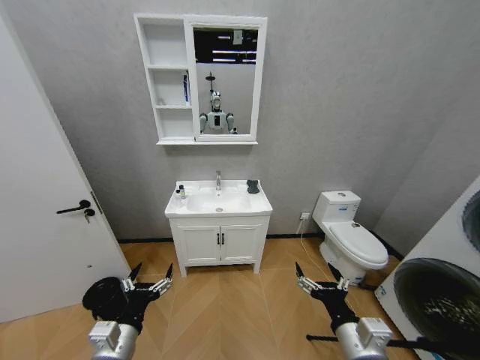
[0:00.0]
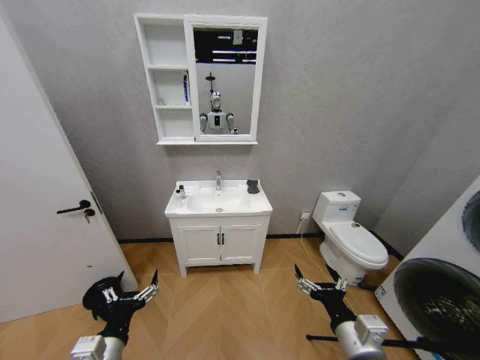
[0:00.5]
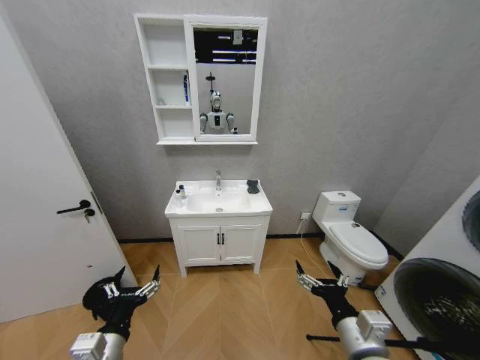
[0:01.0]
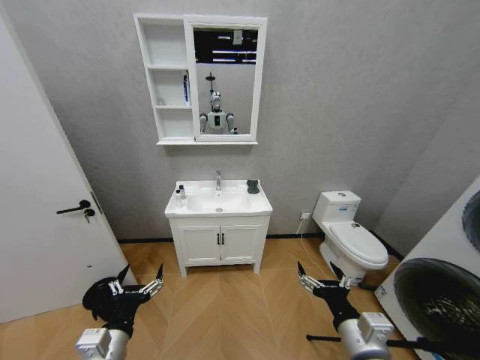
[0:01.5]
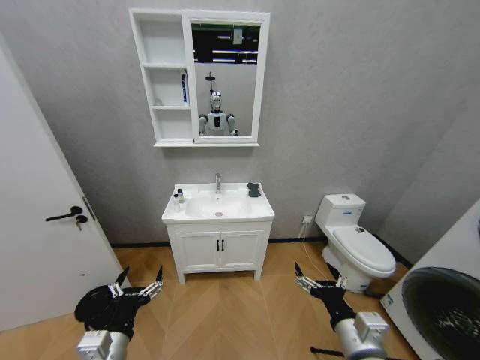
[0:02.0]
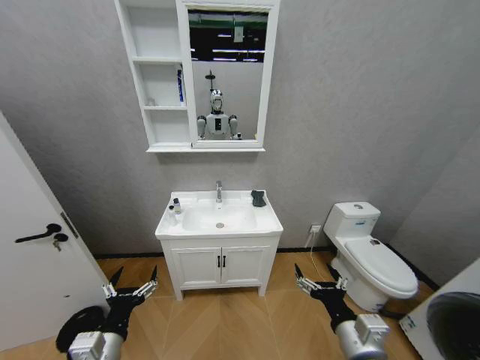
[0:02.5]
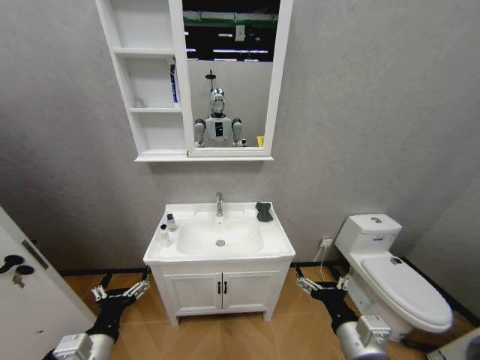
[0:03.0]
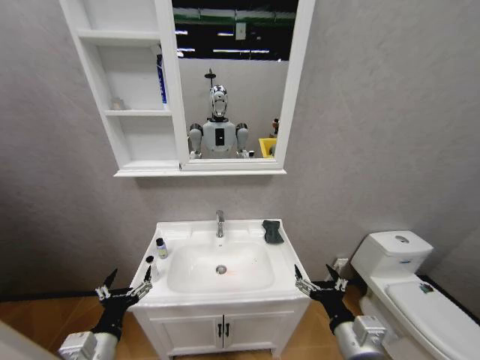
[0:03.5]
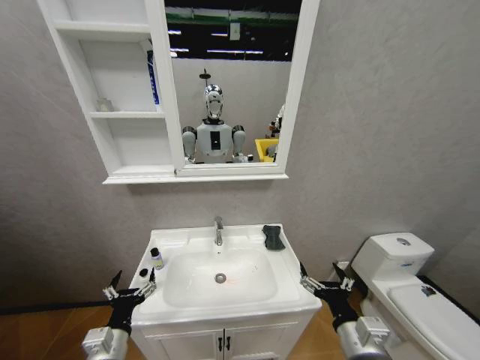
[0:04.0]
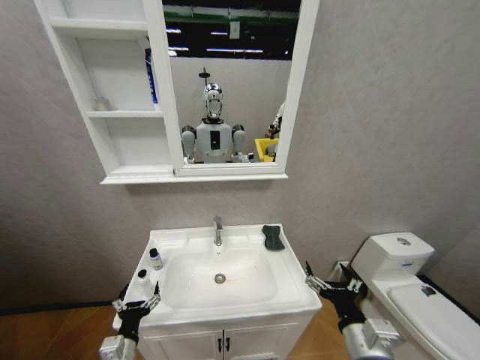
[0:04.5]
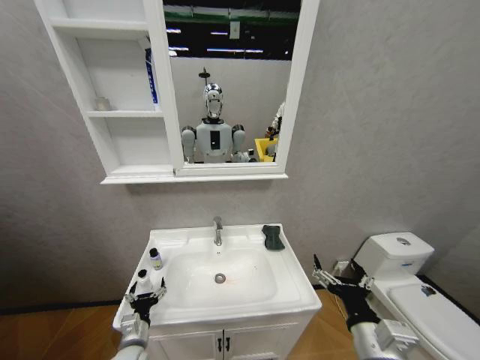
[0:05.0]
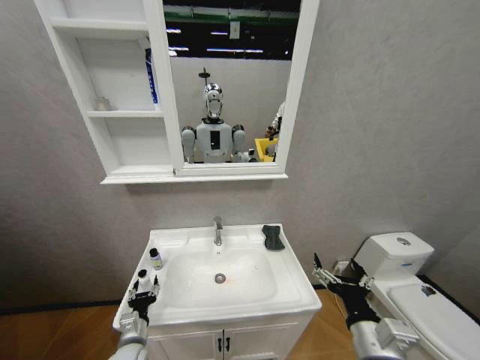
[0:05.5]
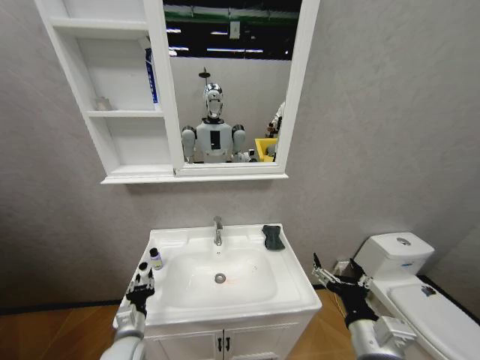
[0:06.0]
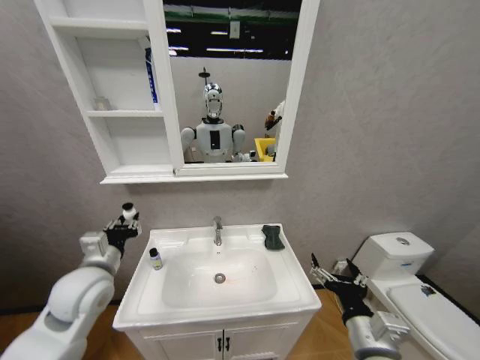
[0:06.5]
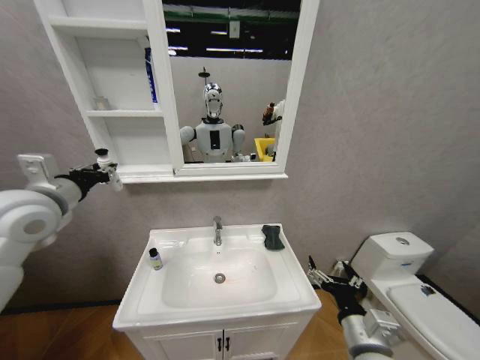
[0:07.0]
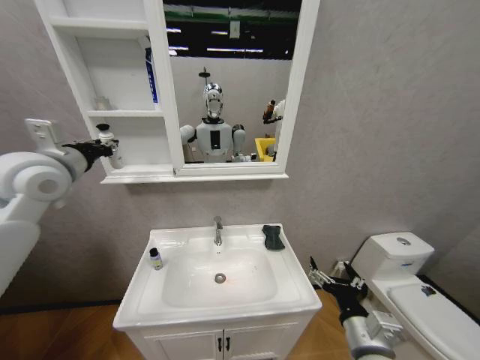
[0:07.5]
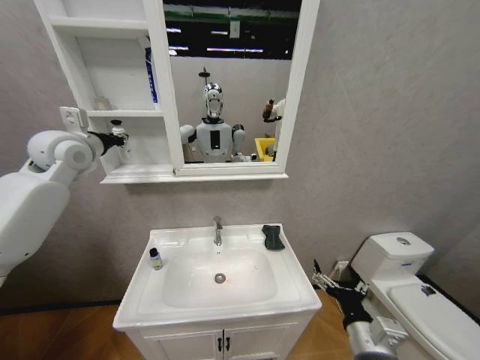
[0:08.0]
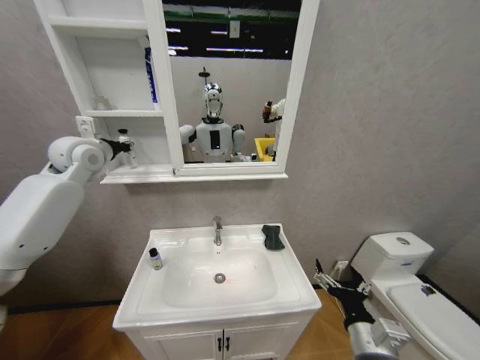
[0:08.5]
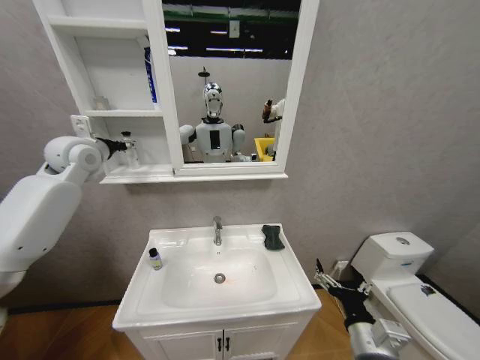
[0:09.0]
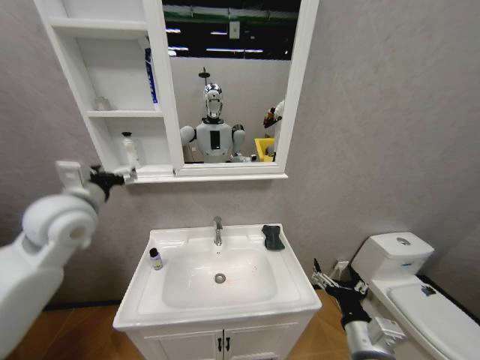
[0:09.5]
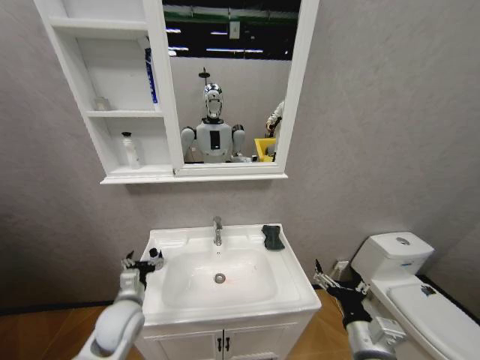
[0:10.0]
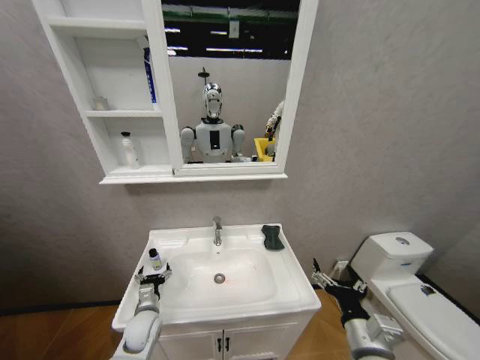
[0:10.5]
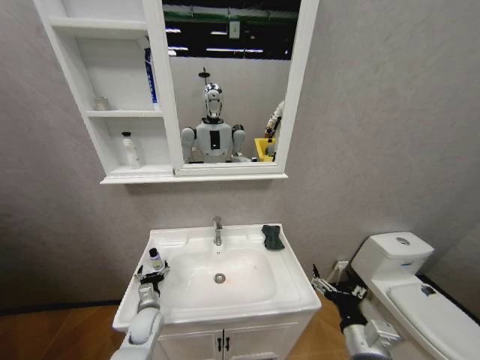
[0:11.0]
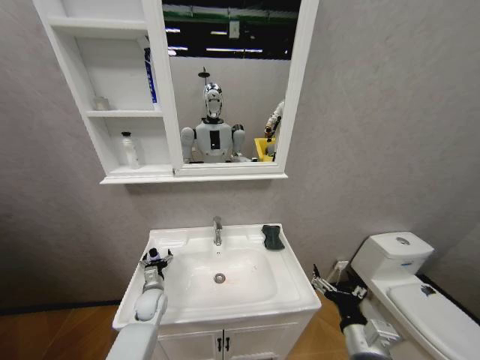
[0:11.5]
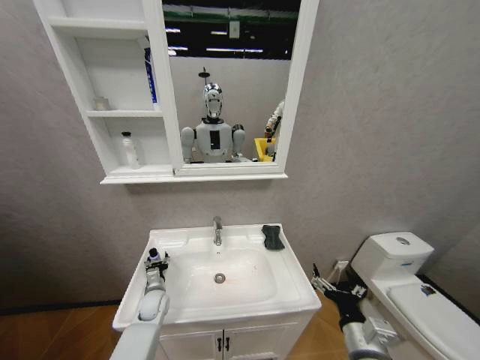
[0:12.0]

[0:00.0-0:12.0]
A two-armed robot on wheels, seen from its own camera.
Task of the whole recording: Move facial cleanser and shampoo from washbasin to cabinet, then wipe washbasin with towel.
0:04.0 to 0:06.0: The left gripper goes roughly 10 cm forward and downward, and closes.
0:06.0 to 0:08.0: The left gripper shifts about 50 cm upward and forward.
0:08.0 to 0:10.0: The left gripper goes some 40 cm downward, and opens.
0:10.0 to 0:12.0: The left gripper goes approximately 15 cm forward and downward, and closes up.

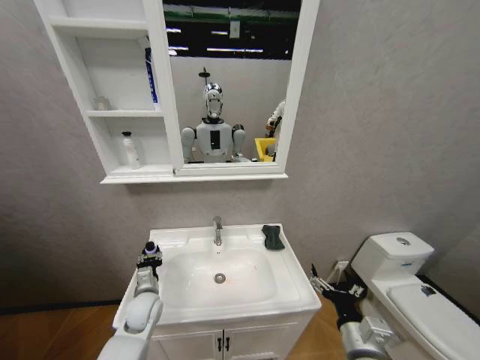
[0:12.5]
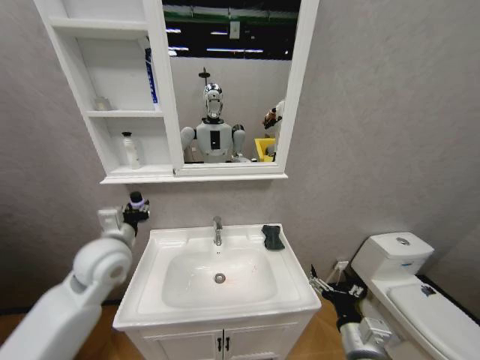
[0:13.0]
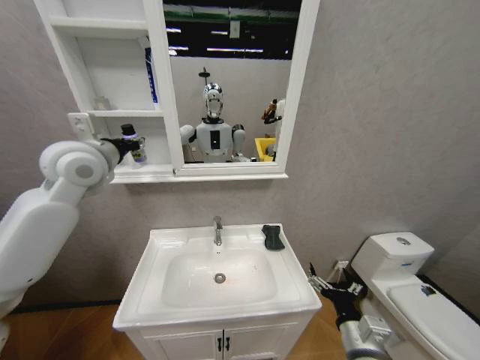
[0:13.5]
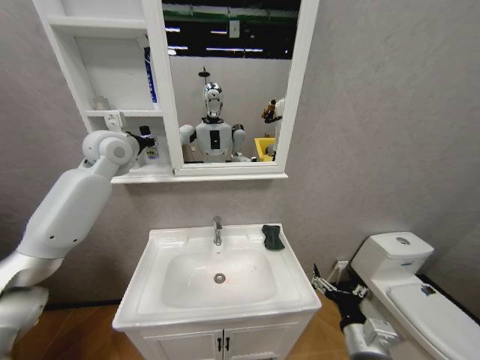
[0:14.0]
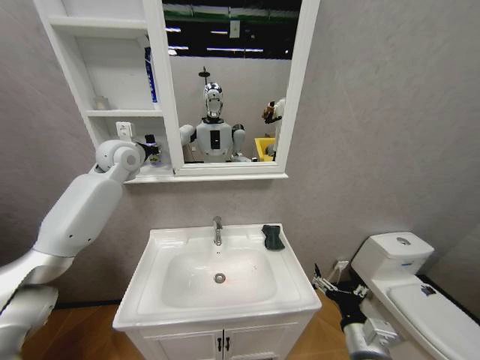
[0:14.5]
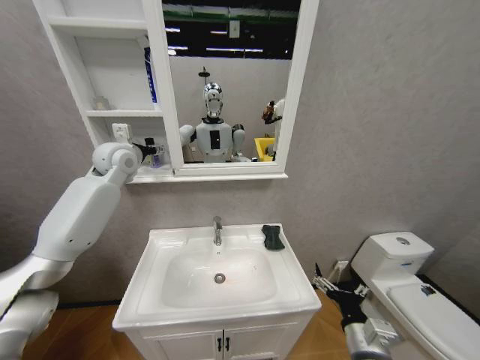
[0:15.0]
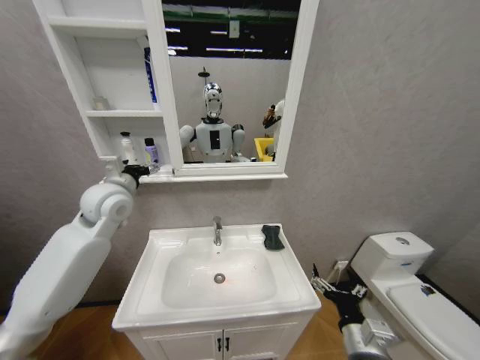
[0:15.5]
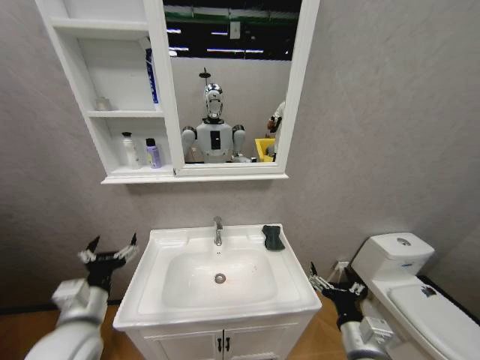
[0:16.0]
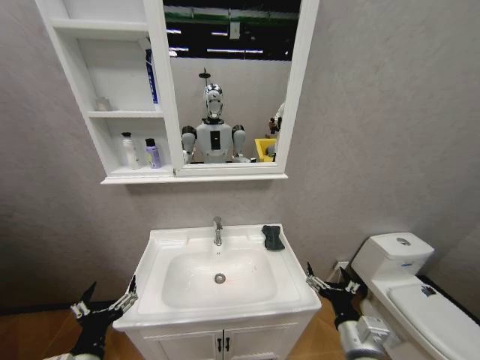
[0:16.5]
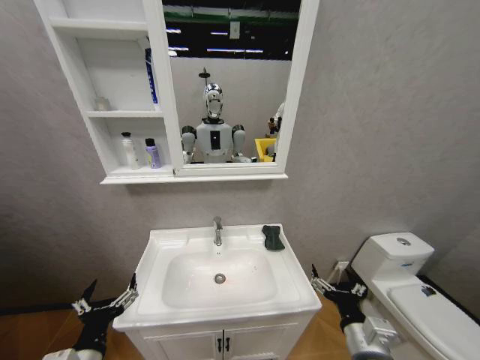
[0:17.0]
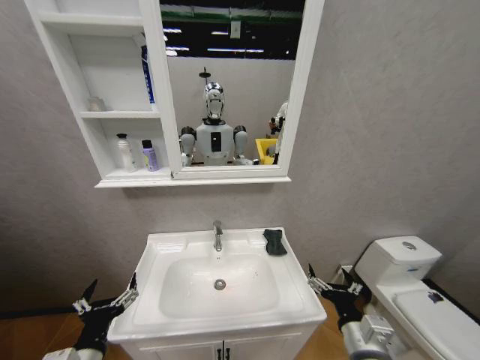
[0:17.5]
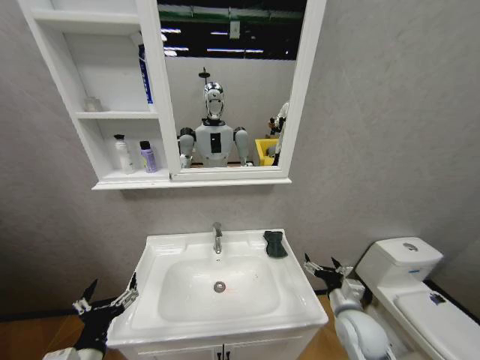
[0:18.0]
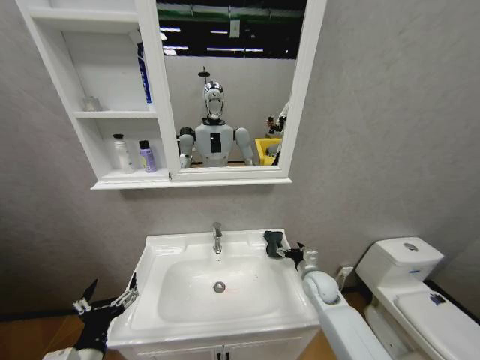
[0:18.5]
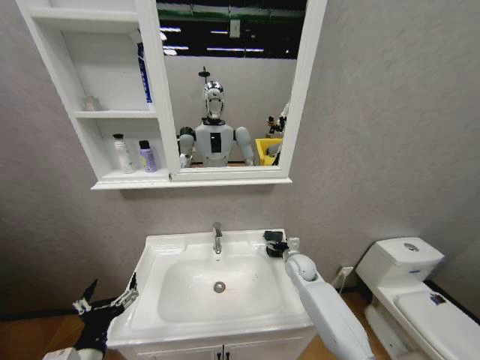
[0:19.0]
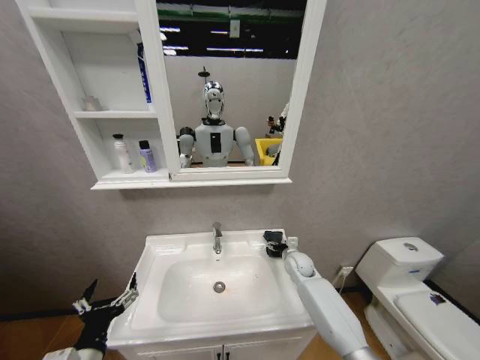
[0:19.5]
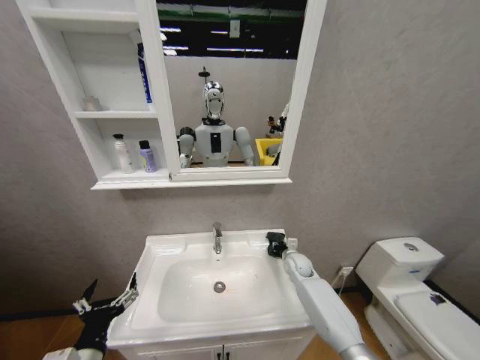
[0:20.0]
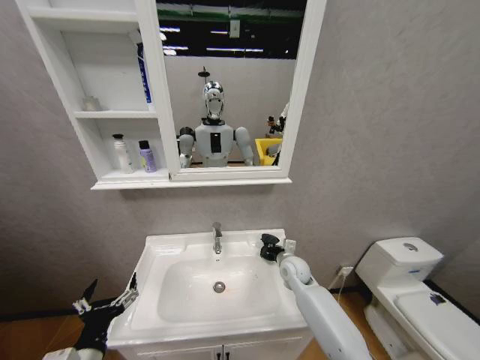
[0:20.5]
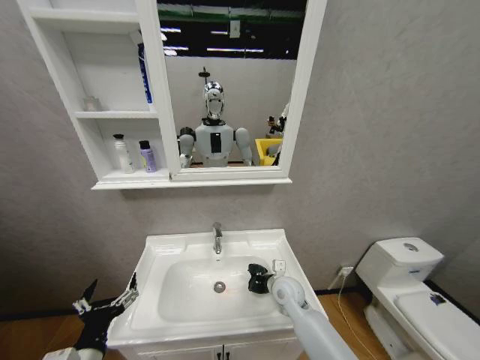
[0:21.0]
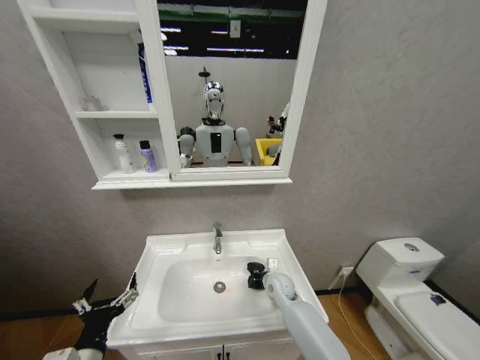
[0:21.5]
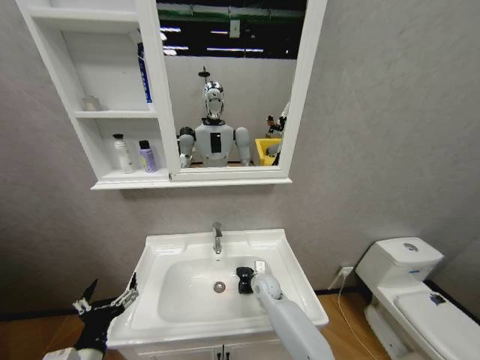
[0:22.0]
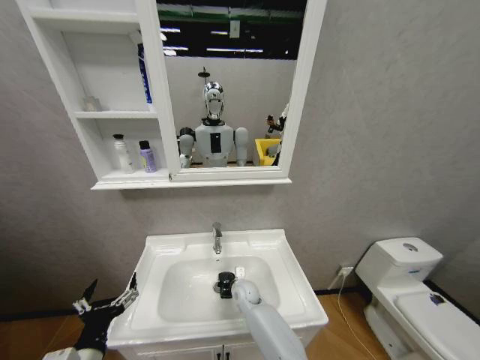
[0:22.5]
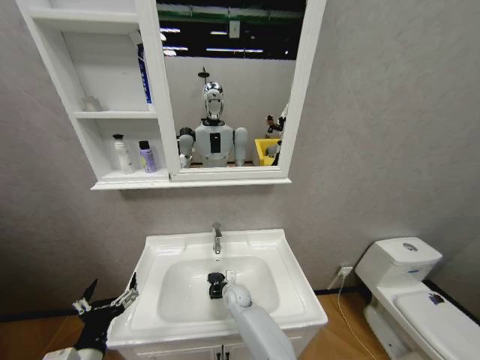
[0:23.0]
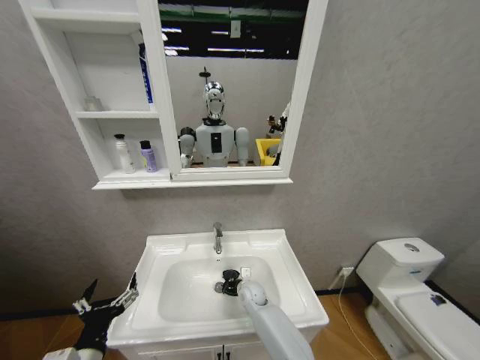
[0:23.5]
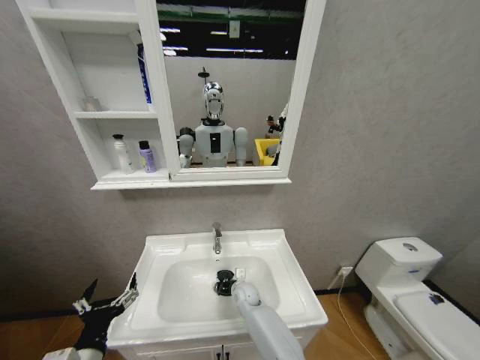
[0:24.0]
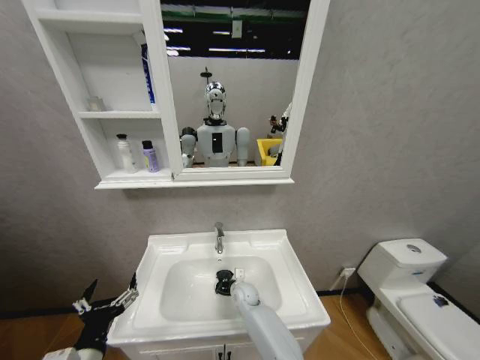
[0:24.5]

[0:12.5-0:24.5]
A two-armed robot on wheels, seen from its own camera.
Task of the whole recording: Move facial cleanser and shampoo from washbasin to cabinet, then wipe washbasin with towel.
0:12.5 to 0:14.5: The left gripper heads upward and forward, covering roughly 40 cm.
0:14.5 to 0:16.5: The left gripper heads backward and downward, covering some 50 cm, and opens up.
0:16.5 to 0:18.5: The right gripper moves forward, approximately 25 cm.
0:18.5 to 0:20.5: The right gripper moves to the left and forward, approximately 10 cm, and closes up.
0:20.5 to 0:22.5: The right gripper travels to the left and downward by some 20 cm.
0:22.5 to 0:24.5: The grippers make only small movements.

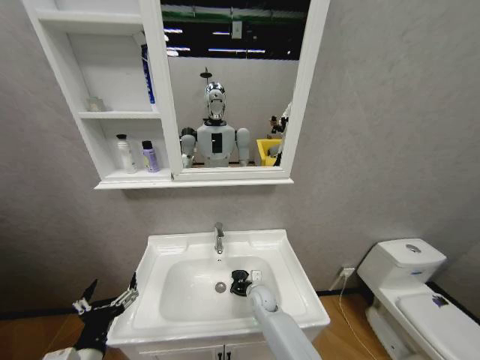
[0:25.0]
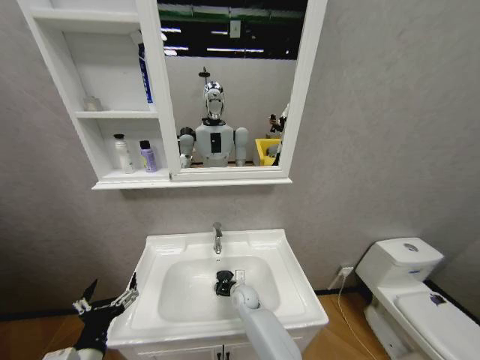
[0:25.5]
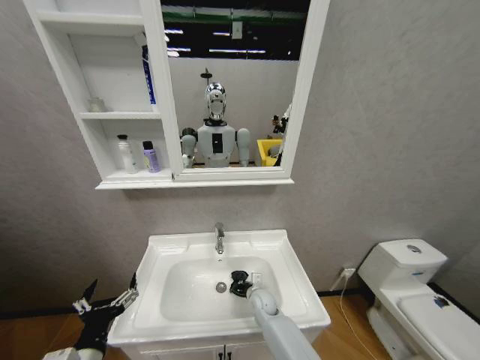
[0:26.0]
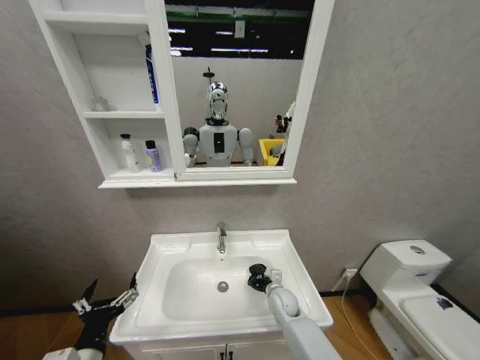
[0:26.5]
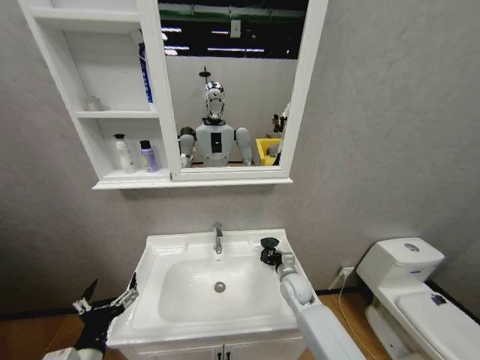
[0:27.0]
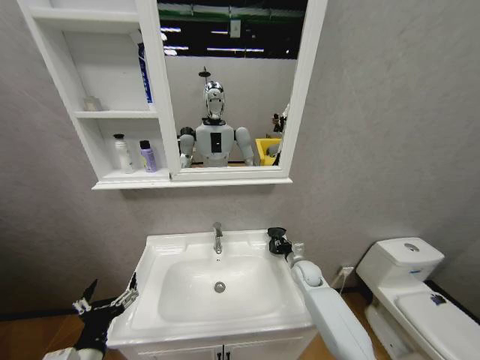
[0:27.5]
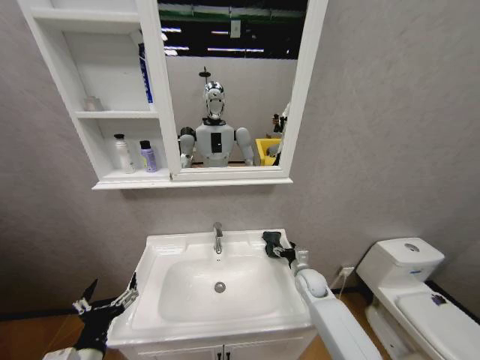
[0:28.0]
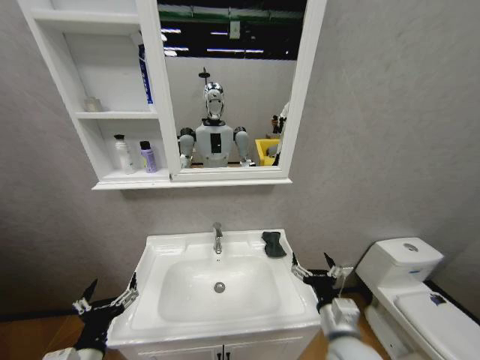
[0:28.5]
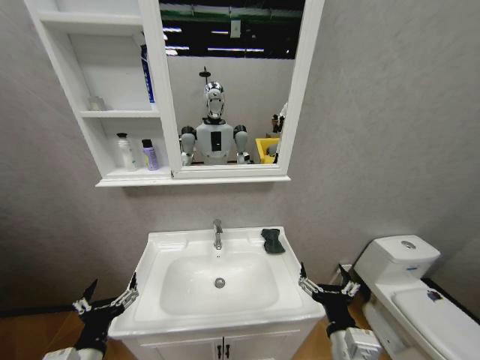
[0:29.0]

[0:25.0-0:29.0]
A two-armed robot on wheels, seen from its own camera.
Task of the whole recording: Move facial cleanser and shampoo from washbasin to cabinet, then wipe washbasin with towel.
0:25.0 to 0:27.0: The right gripper heads to the right and upward, covering approximately 15 cm.
0:27.0 to 0:29.0: The right gripper heads backward, covering approximately 25 cm, and opens its fingers.
